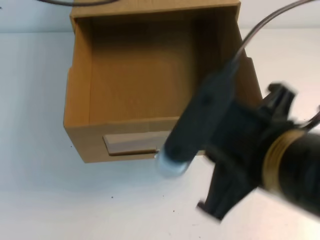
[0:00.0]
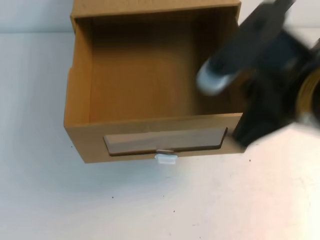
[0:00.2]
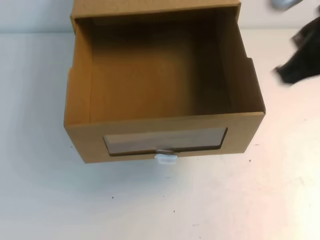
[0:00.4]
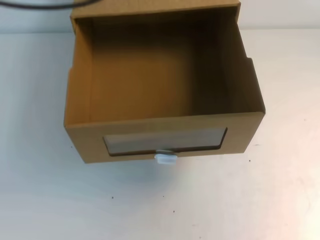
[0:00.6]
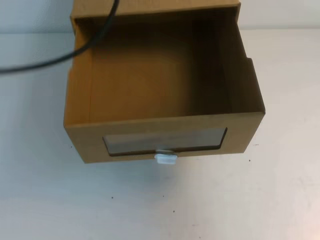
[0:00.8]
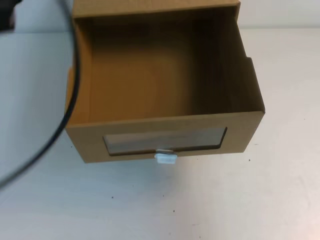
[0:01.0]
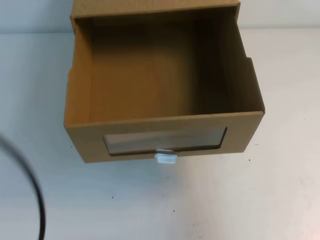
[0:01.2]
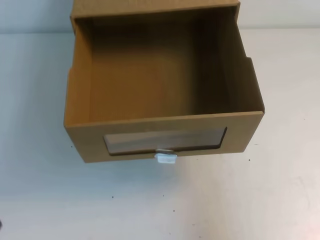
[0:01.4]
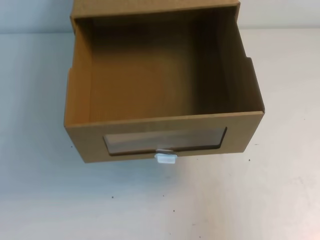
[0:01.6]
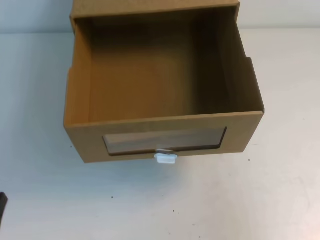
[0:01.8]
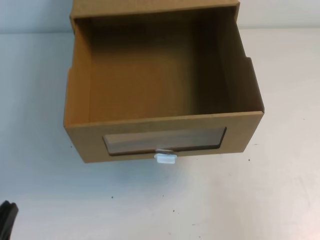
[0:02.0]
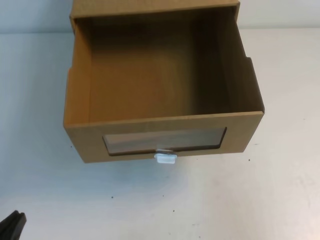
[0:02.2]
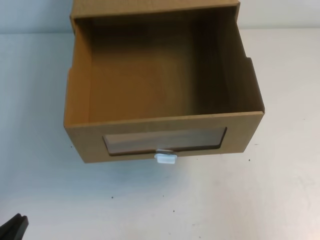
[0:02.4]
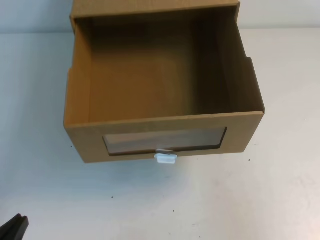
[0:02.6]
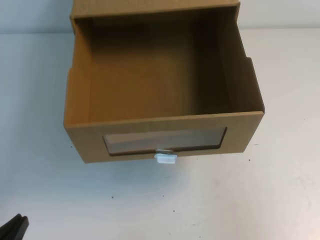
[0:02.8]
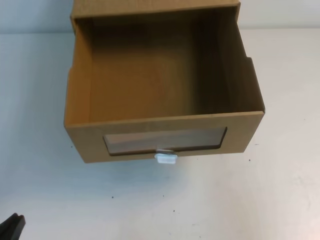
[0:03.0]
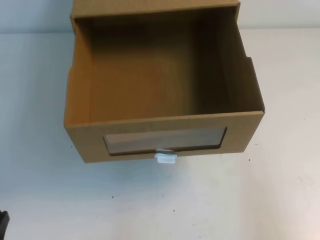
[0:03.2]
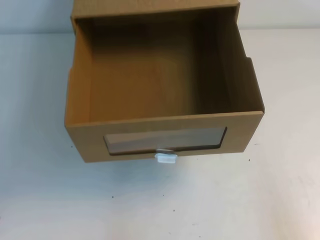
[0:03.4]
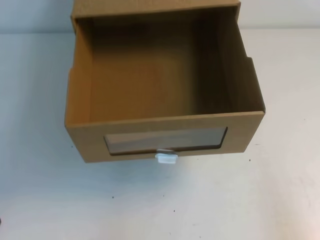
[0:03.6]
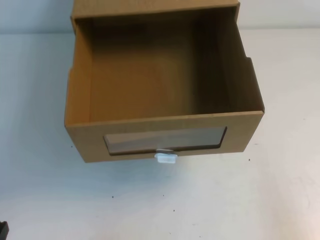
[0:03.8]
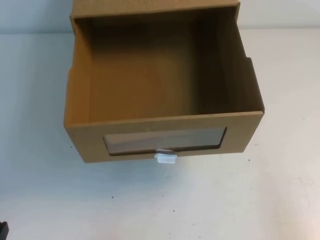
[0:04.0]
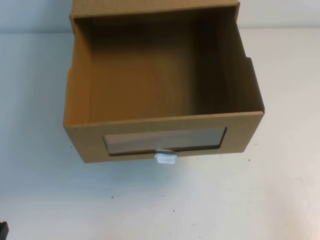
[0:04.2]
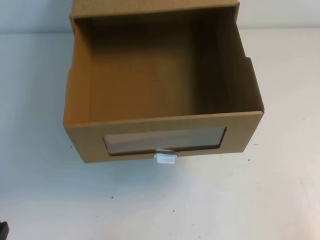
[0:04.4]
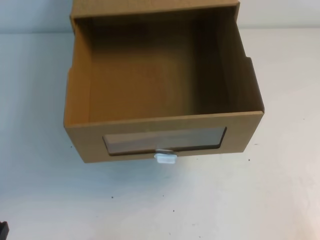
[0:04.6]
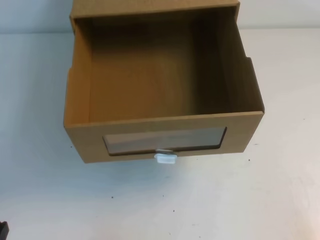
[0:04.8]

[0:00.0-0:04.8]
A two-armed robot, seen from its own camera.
Task of the whole recording: open the shoebox on the table.
Step, 0:00.0 to 0:04.8: Open the shoe box.
0:00.0 to 0:01.6: The left gripper shifts some 40 cm backward and downward; the right gripper travels to the right by roughly 20 cm.
0:01.6 to 0:03.2: The two grippers go about 10 cm downward.

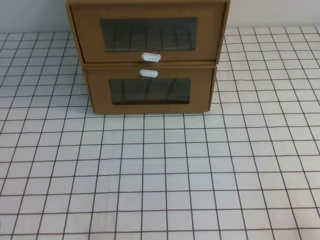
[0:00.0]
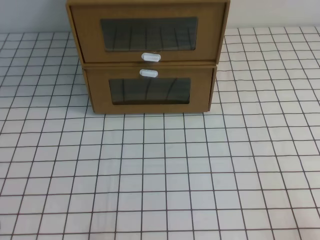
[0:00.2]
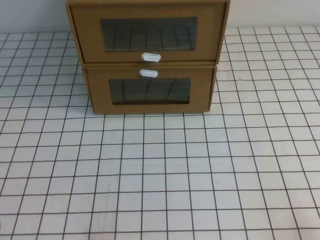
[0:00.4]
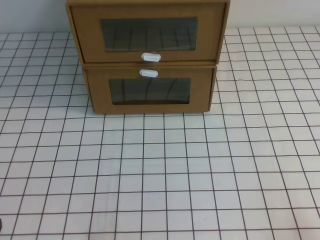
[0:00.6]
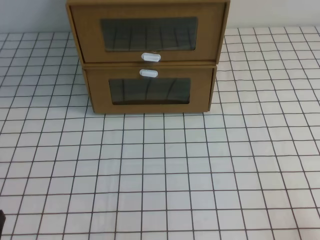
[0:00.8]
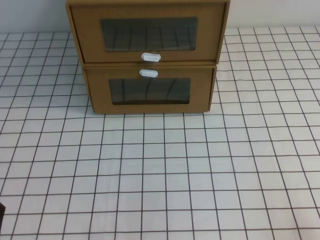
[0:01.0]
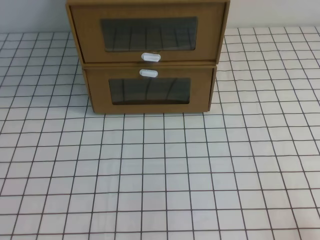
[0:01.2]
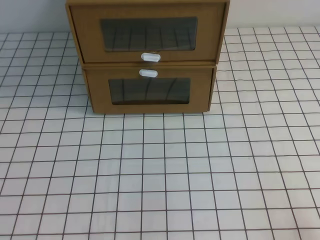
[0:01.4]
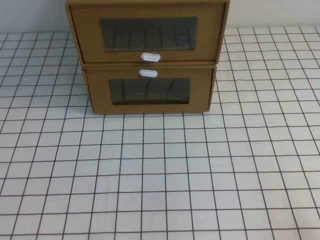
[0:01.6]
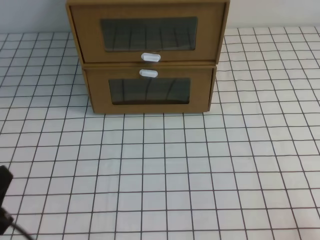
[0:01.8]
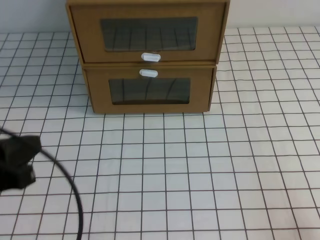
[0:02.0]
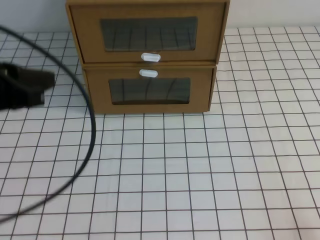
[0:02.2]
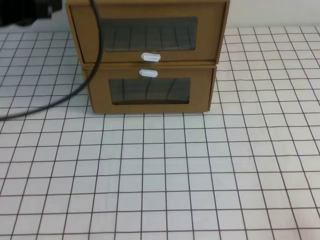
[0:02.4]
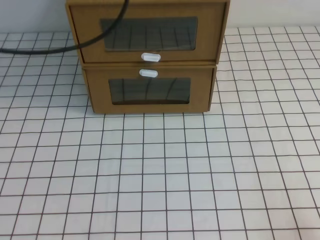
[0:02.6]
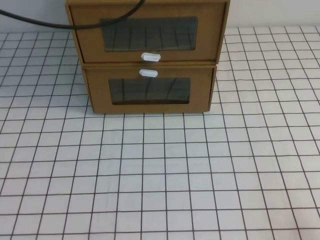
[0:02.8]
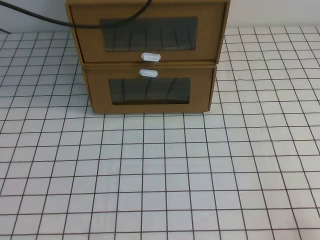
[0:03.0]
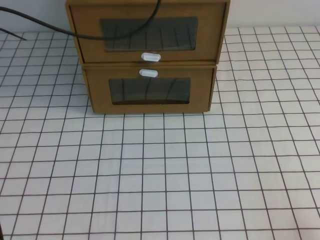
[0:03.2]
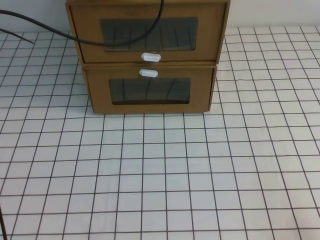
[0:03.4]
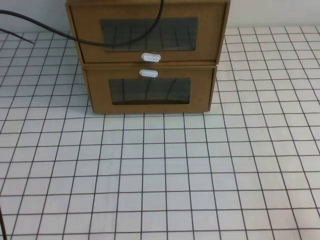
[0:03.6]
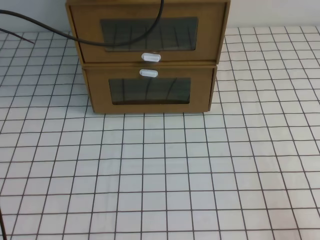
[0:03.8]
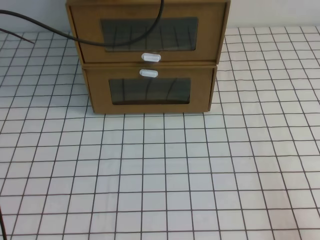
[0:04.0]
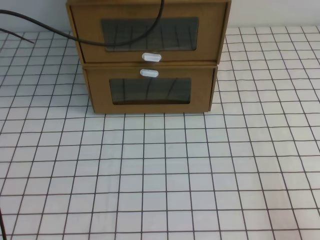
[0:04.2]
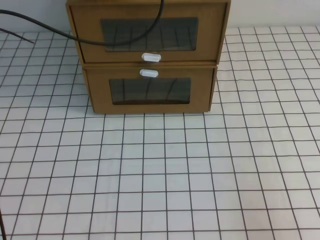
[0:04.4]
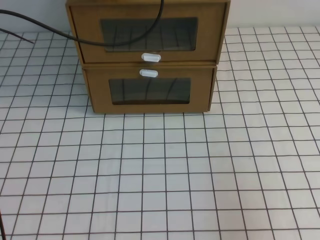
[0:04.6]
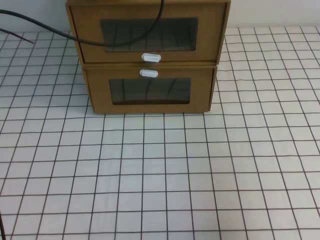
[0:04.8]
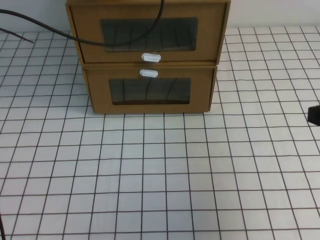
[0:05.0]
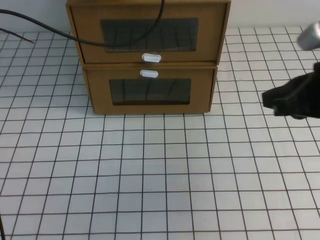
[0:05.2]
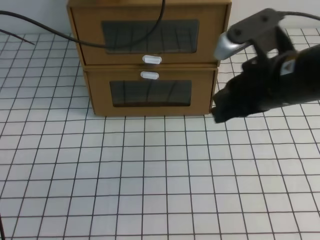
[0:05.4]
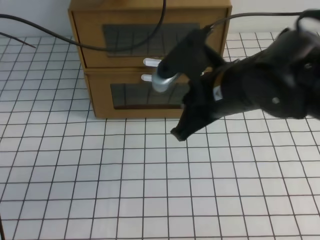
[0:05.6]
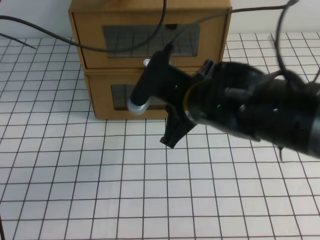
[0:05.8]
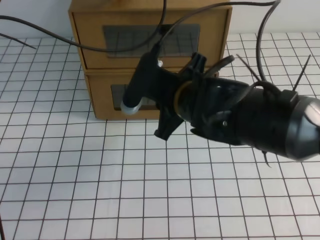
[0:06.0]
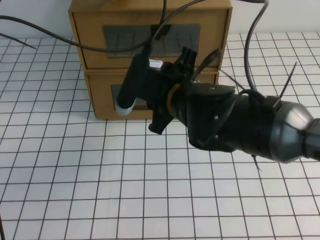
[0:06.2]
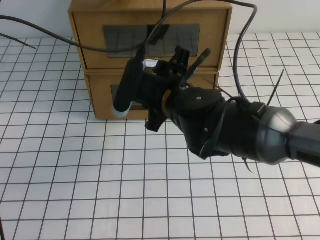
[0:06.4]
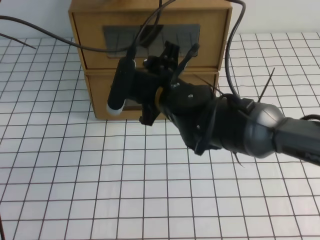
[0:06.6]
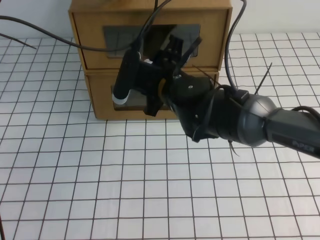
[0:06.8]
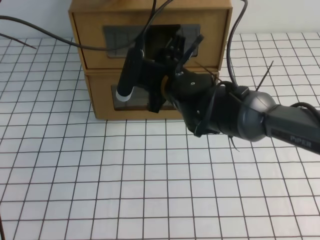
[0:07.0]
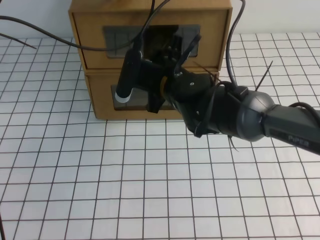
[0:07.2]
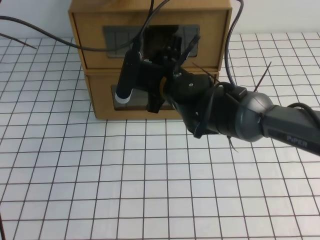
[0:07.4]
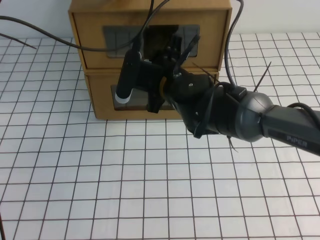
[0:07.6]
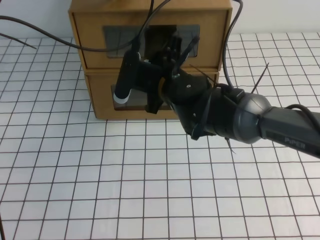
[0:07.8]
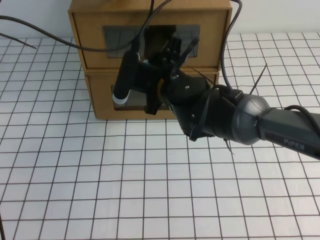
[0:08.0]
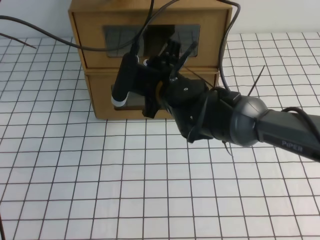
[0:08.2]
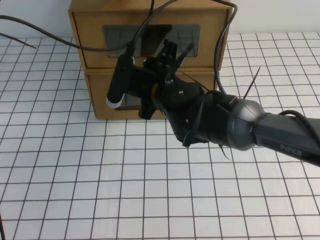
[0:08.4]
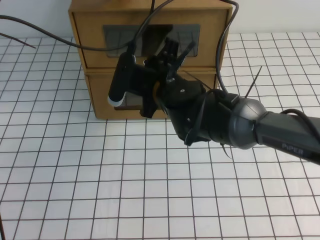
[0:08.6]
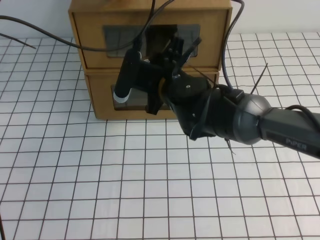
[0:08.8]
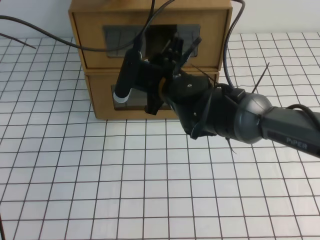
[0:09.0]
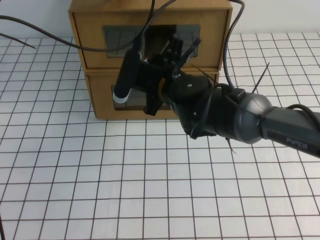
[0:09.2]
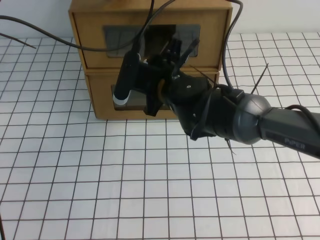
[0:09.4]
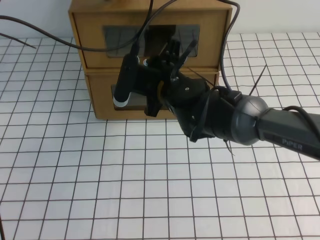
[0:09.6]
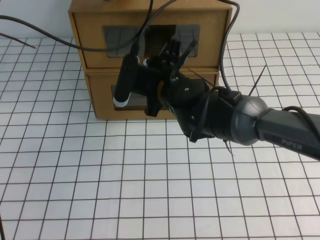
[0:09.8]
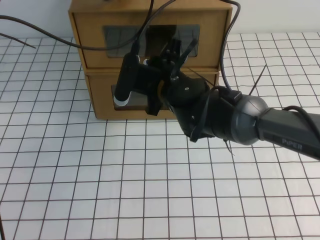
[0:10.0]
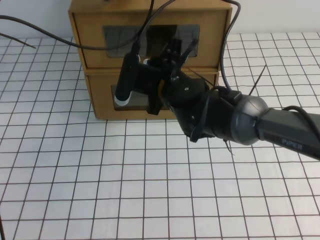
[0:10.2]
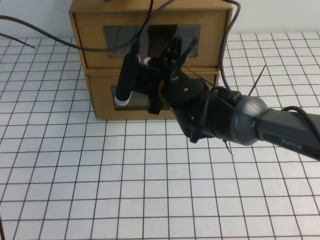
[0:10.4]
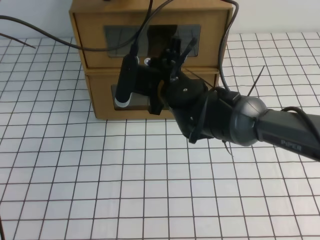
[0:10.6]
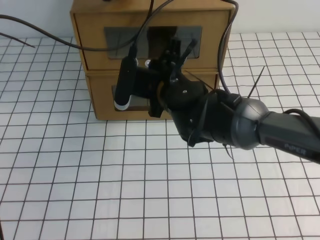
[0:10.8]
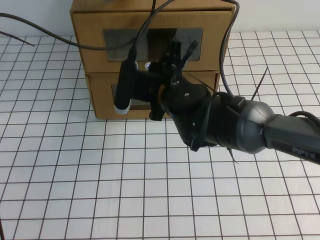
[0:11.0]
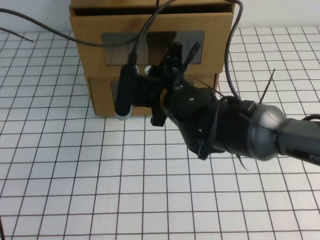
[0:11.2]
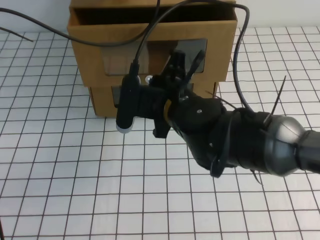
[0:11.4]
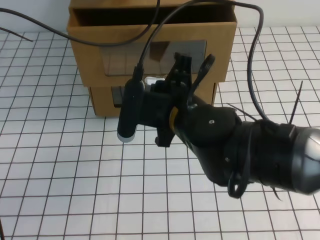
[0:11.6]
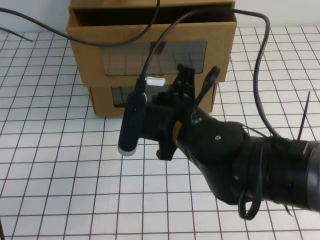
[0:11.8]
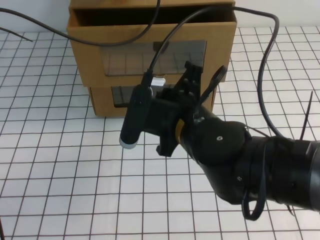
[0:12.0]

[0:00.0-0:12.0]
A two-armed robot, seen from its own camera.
Task of the whole recording: open the shoebox on the white tablecloth.
0:01.6 to 0:03.0: The left gripper heads forward and upward, covering roughly 40 cm.
0:03.0 to 0:04.4: The left gripper ends up about 5 cm from where it was.
0:04.4 to 0:06.0: The right gripper moves to the left and forward, approximately 35 cm, and opens its fingers.
0:06.0 to 0:07.6: The right gripper moves forward, about 5 cm, and opens up.
0:07.6 to 0:09.0: Both grippers stay put.
0:09.0 to 0:10.4: The right gripper closes its fingers.
0:10.4 to 0:12.0: The right gripper heads backward, covering roughly 10 cm.

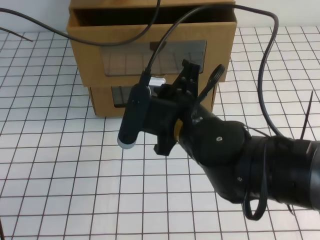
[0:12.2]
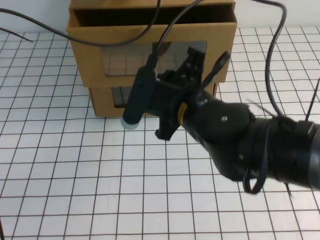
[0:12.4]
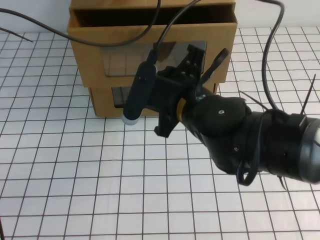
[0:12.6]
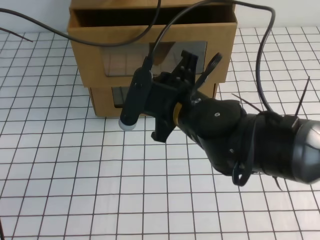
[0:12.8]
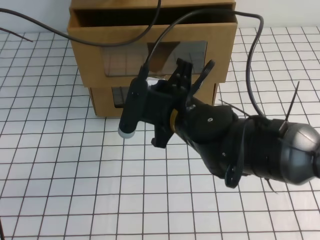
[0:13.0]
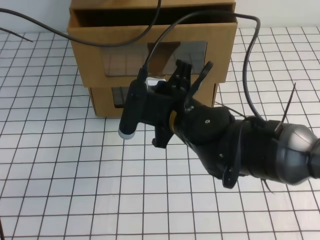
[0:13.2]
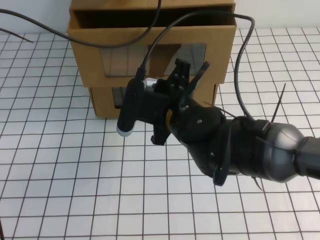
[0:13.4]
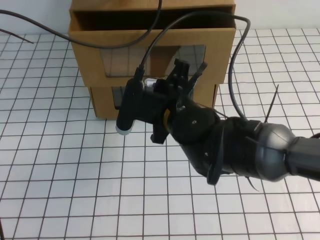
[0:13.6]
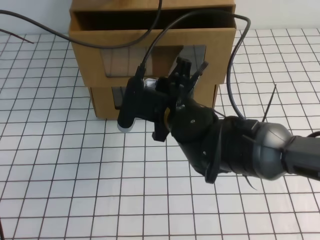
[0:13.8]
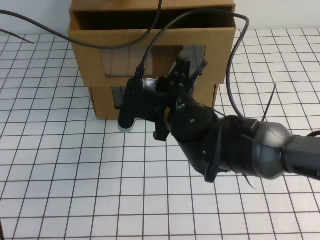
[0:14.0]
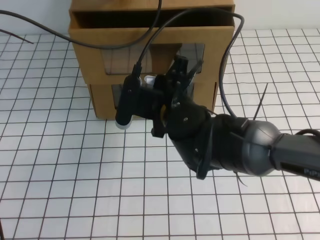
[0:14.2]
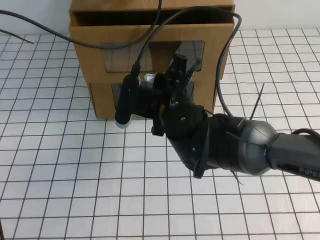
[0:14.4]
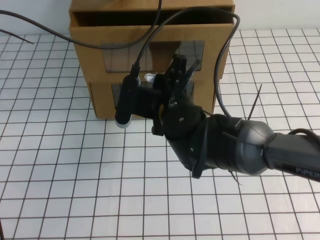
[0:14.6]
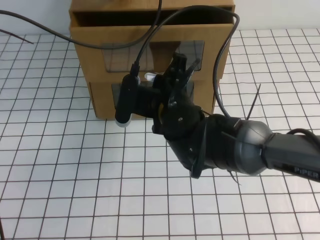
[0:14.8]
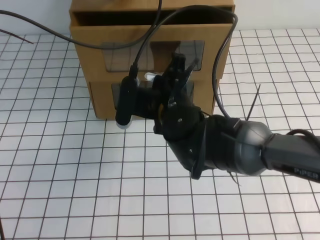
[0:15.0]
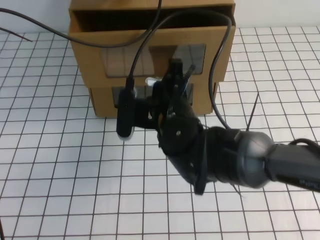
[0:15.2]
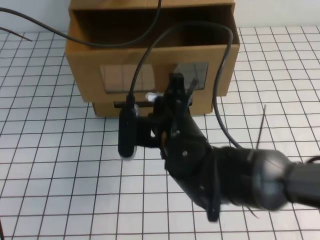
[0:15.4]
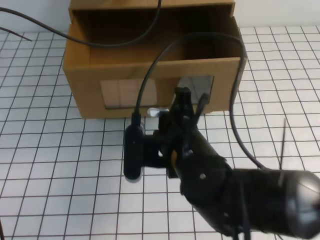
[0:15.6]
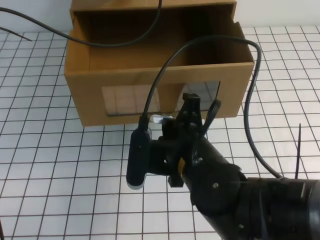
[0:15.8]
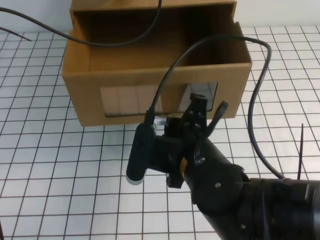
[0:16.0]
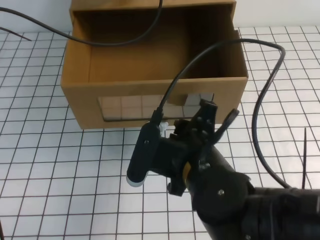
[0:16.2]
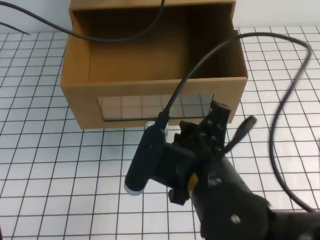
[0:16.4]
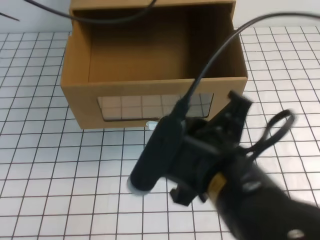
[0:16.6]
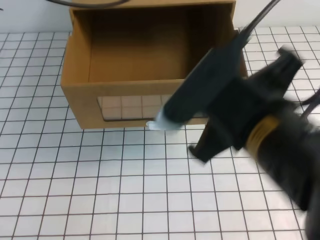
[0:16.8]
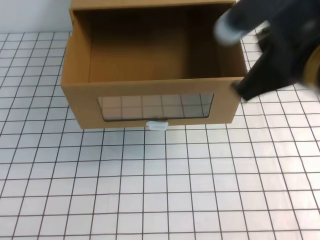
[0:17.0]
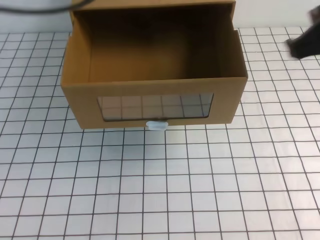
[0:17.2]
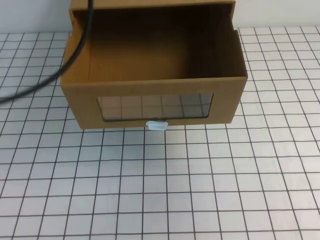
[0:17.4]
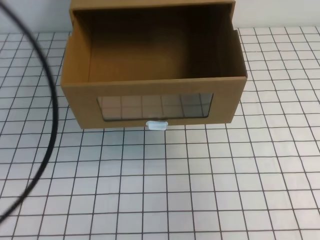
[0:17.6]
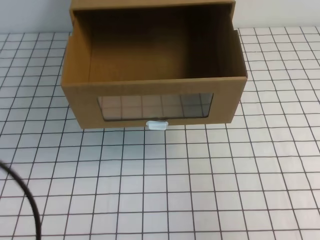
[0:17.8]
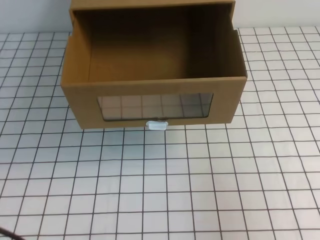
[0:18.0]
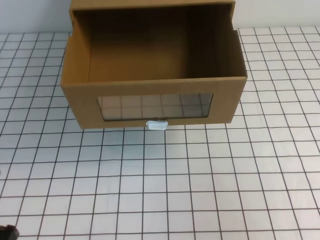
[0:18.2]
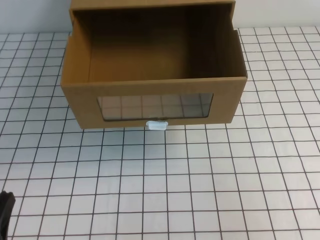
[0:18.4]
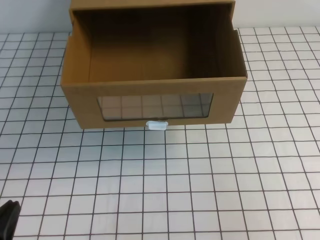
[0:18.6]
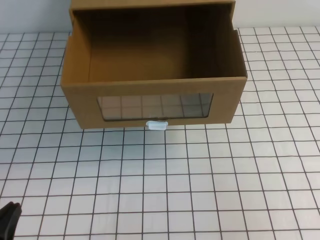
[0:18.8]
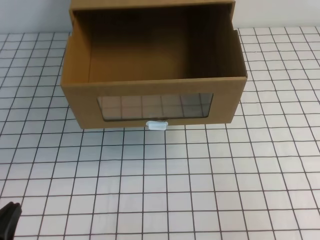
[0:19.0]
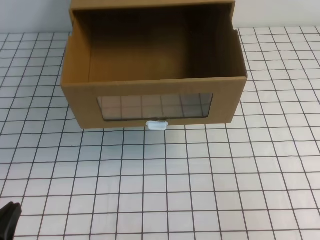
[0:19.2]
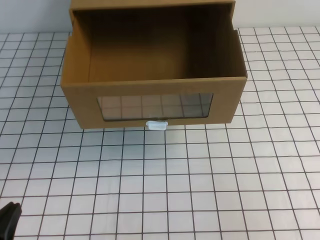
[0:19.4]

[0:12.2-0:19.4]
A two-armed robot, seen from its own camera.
Task of the whole recording: open the shoebox on the white tablecloth.
0:12.2 to 0:13.6: The right gripper changes place by about 5 cm.
0:13.6 to 0:15.0: The right gripper closes.
0:15.0 to 0:16.6: The right gripper is displaced backward and upward by roughly 20 cm. The left gripper travels upward by some 5 cm.
0:16.6 to 0:18.0: The left gripper moves backward, some 30 cm. The right gripper is displaced to the right by approximately 25 cm.
0:18.0 to 0:19.4: The left gripper heads downward, covering approximately 15 cm.
